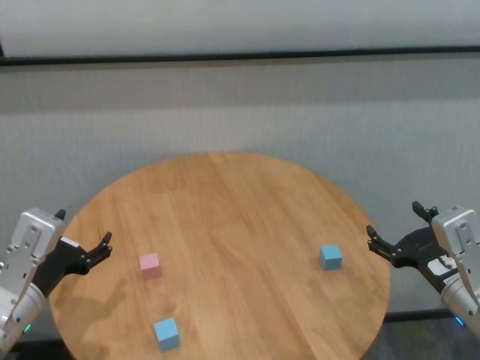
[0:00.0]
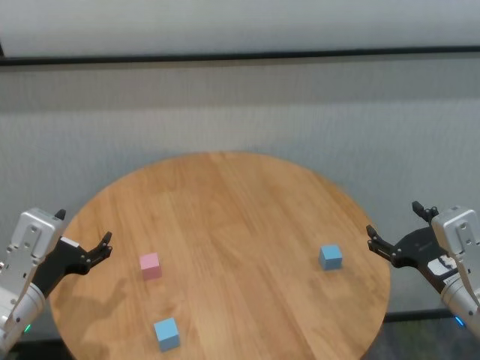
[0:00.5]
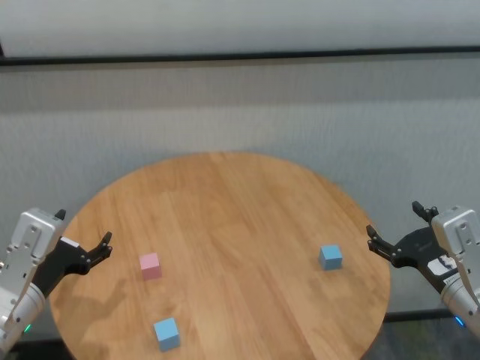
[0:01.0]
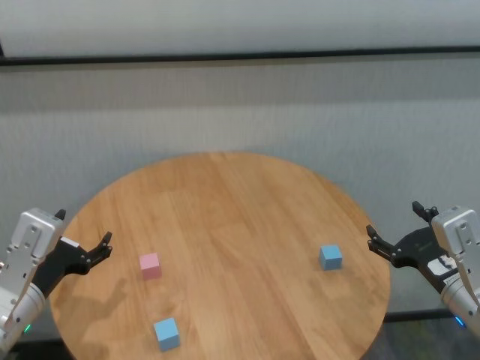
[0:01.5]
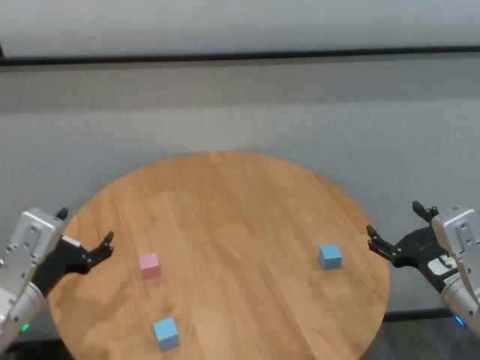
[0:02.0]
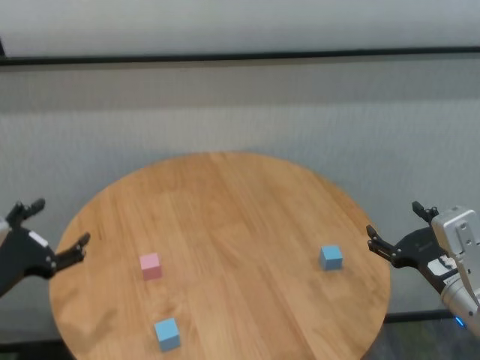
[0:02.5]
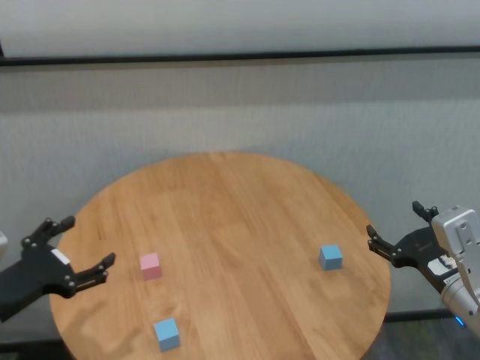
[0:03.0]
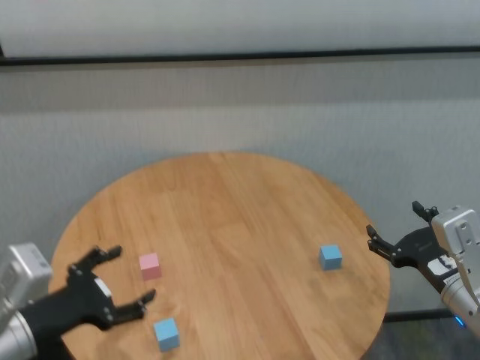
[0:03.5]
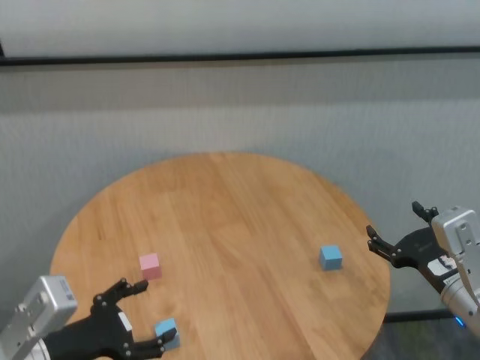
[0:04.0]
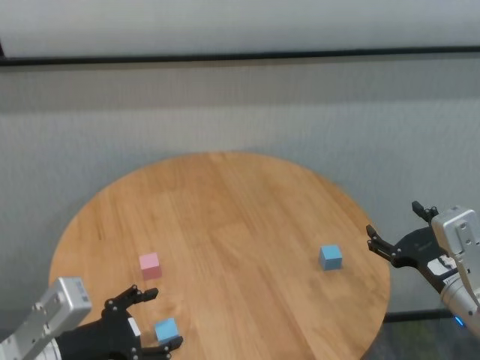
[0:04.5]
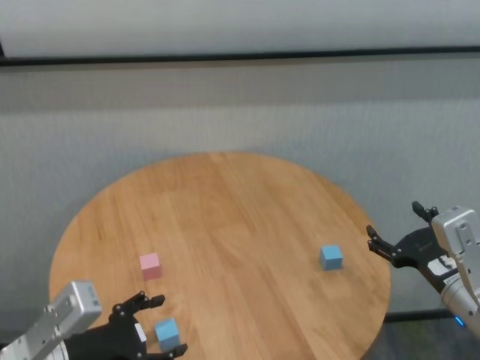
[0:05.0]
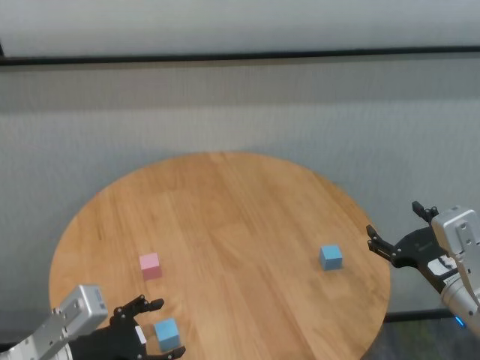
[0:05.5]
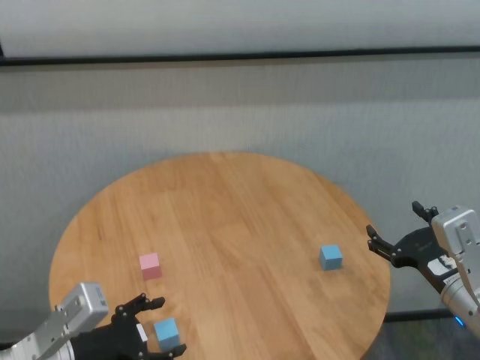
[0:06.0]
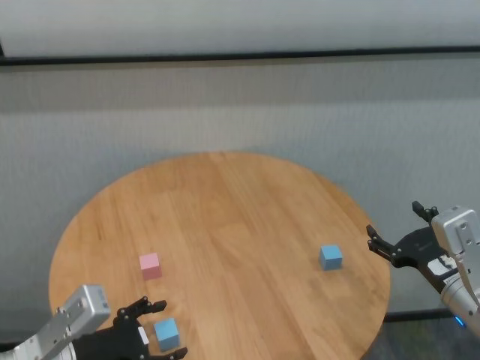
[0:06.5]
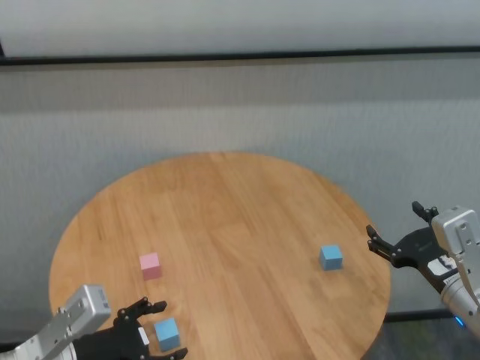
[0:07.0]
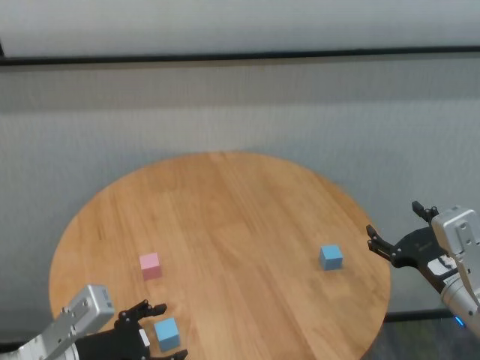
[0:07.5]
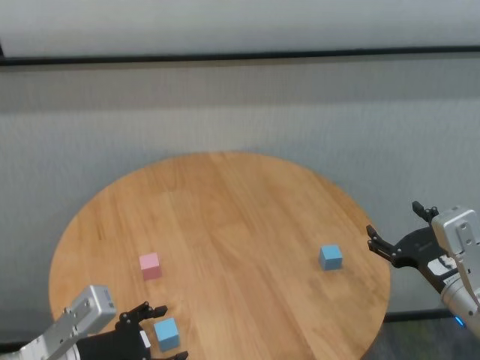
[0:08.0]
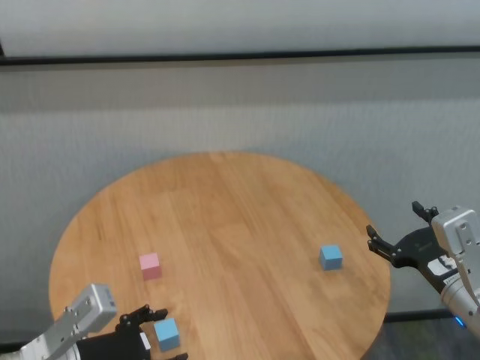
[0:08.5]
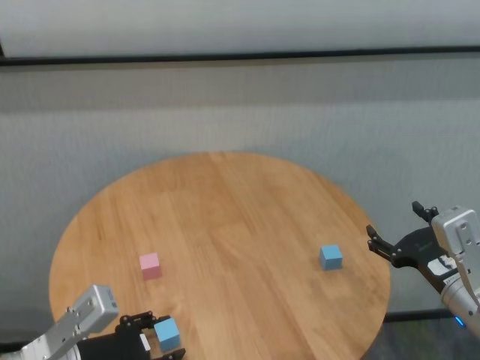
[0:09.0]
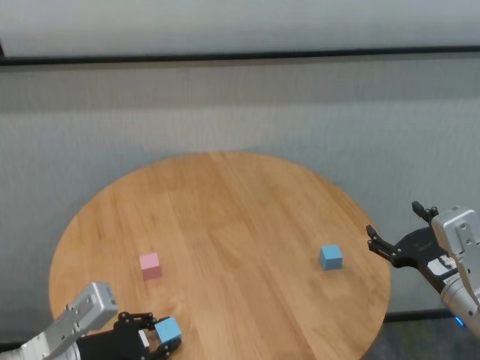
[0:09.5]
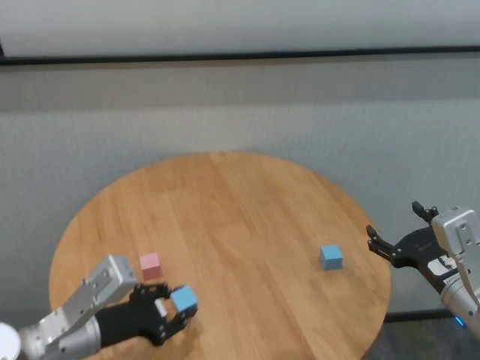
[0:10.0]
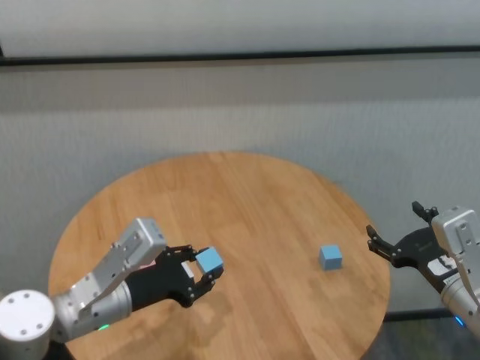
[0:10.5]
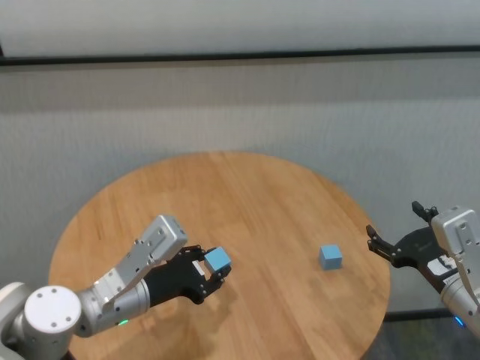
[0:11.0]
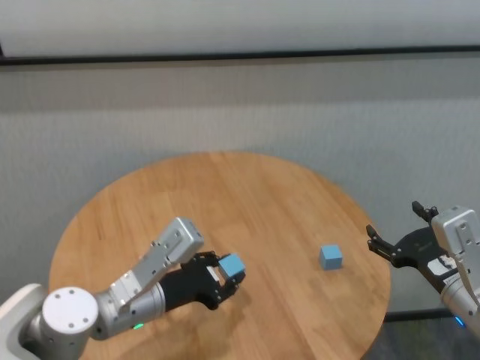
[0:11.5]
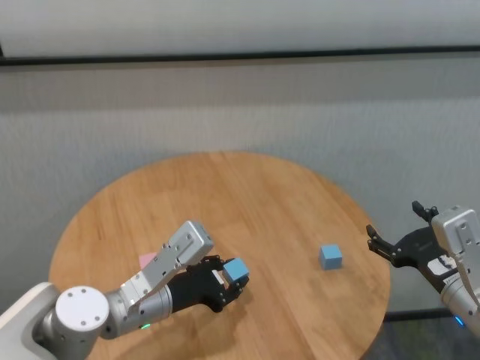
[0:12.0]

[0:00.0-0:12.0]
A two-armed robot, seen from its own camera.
Task of the whole recording: stack building blocks on the table.
Step, 0:00.0 to 0:09.0: Grasp the blue building block with left gripper.

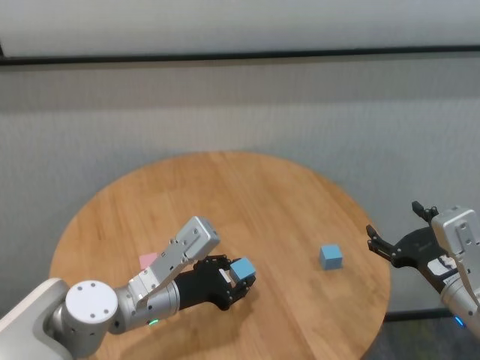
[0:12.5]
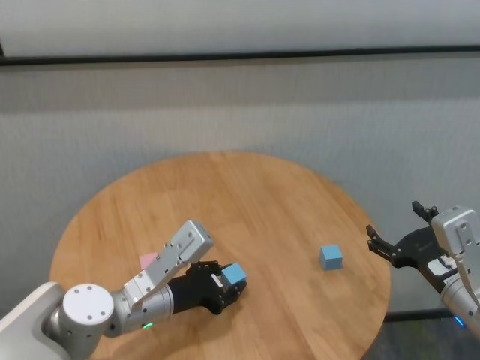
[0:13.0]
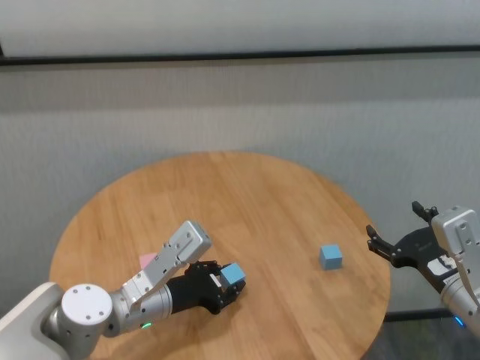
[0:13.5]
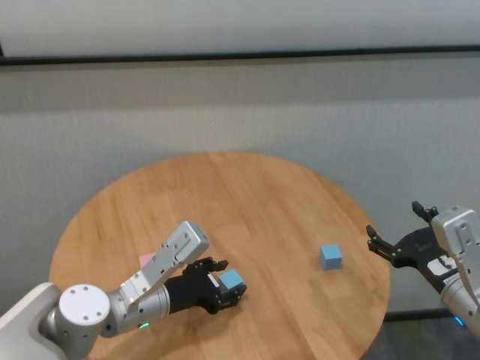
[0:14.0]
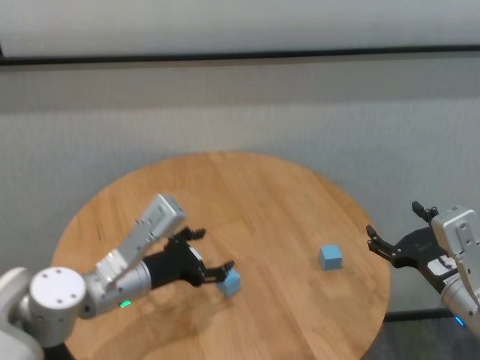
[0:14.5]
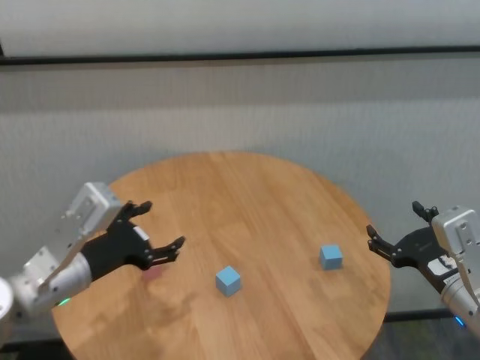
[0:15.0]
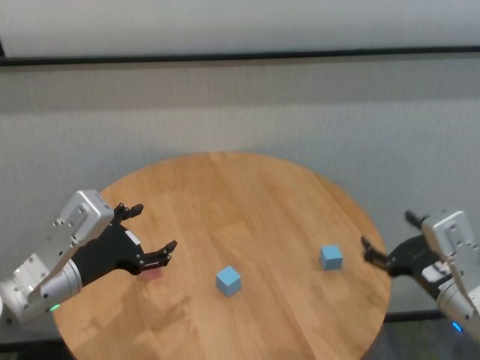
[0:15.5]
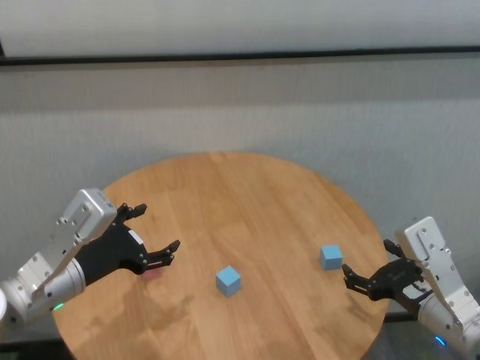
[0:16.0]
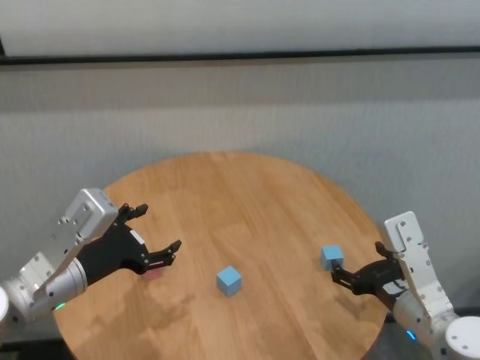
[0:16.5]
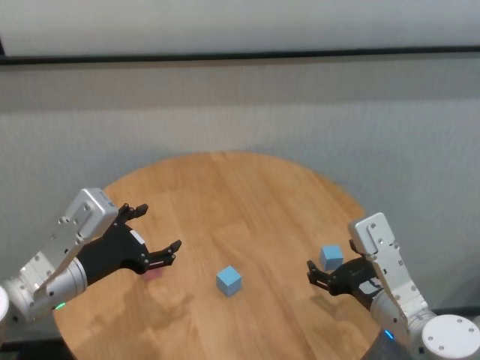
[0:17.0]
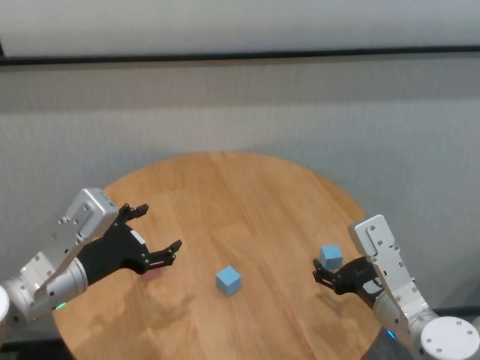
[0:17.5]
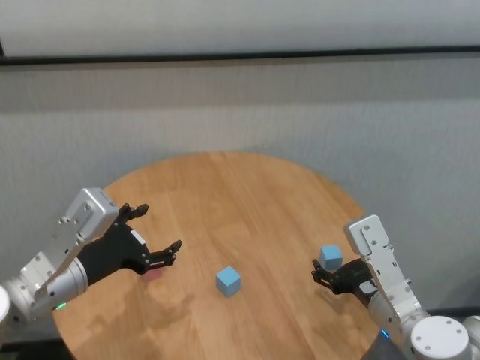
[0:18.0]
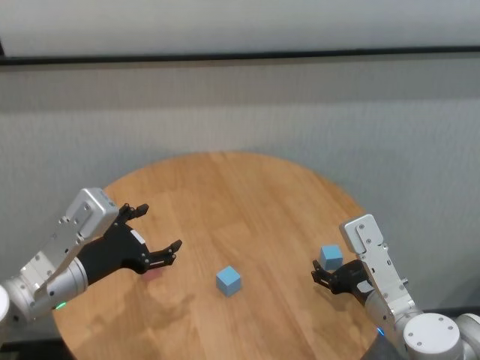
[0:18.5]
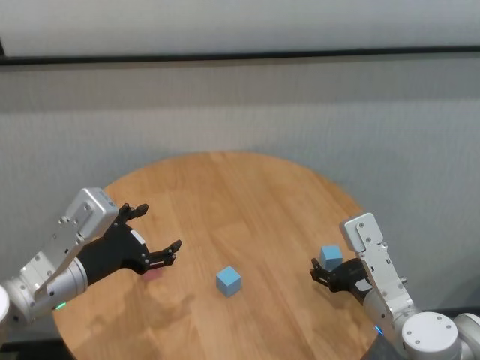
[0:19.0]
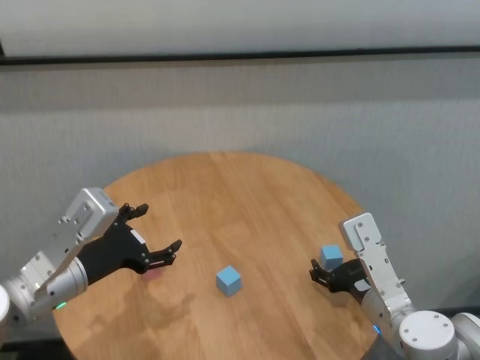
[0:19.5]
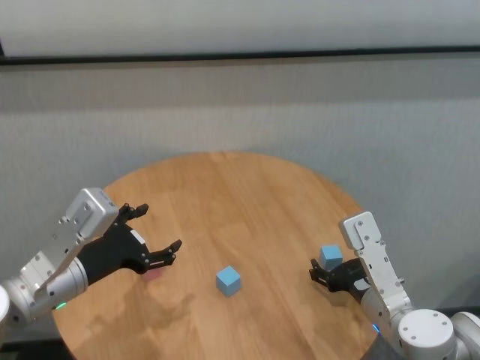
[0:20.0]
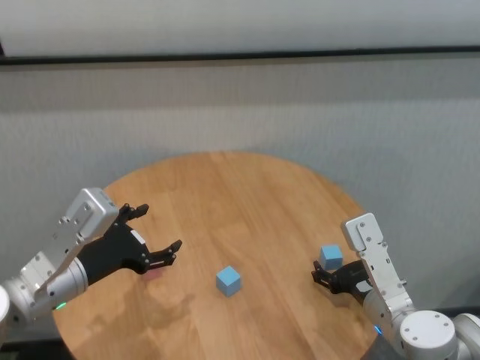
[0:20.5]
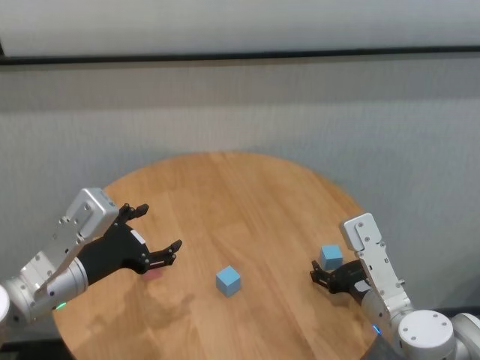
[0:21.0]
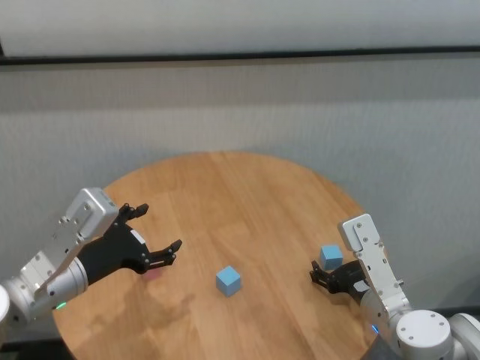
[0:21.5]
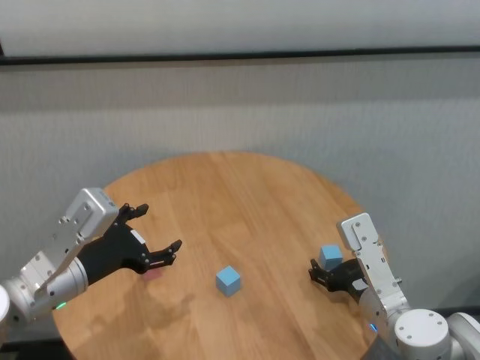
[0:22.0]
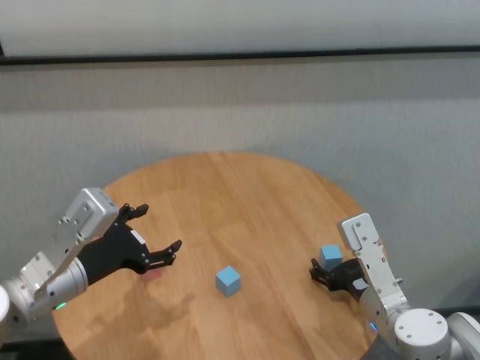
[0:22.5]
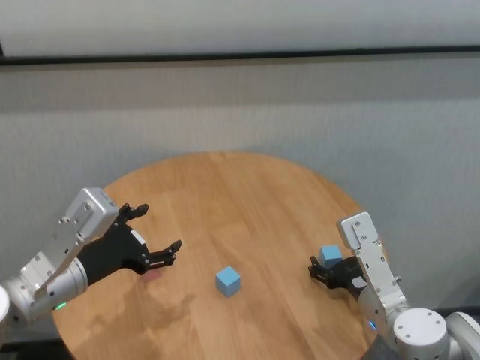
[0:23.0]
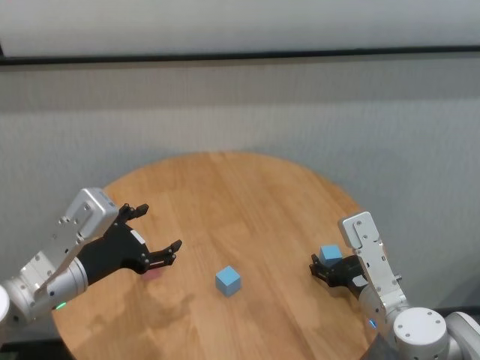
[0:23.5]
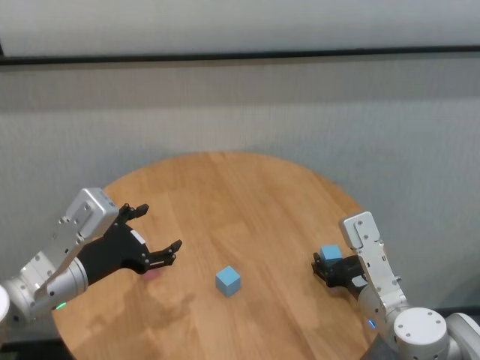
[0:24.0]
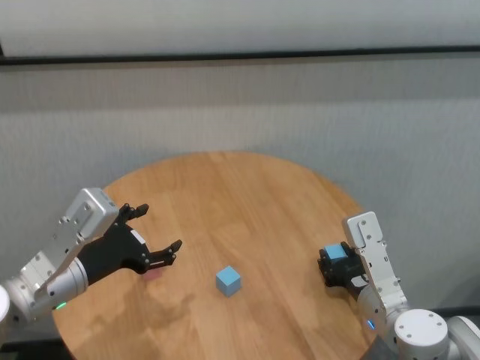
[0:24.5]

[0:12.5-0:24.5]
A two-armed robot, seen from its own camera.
Task of the whole recording: stack building blocks on the table.
Step, 0:14.5 to 0:24.5: Grasp the blue building block with right gripper.

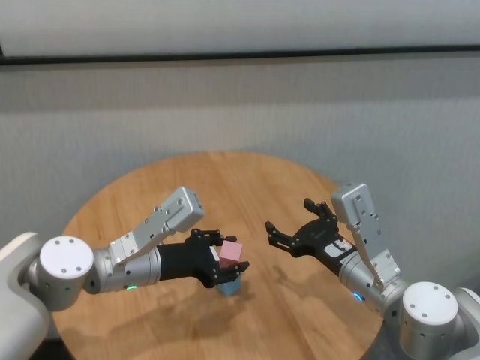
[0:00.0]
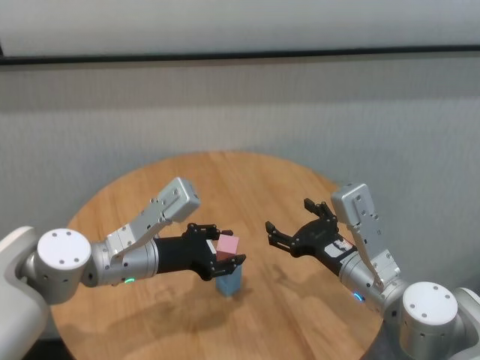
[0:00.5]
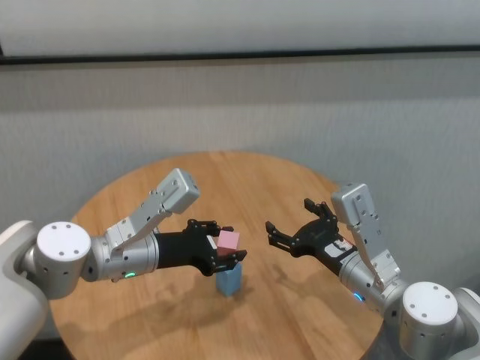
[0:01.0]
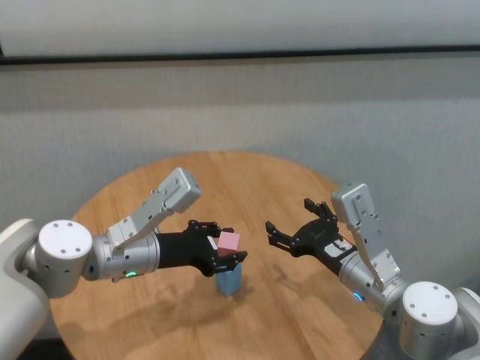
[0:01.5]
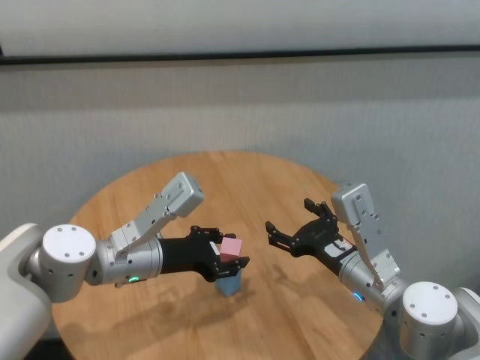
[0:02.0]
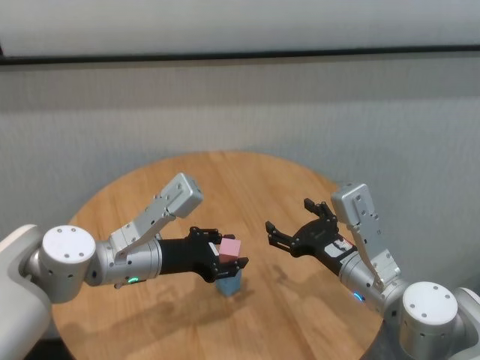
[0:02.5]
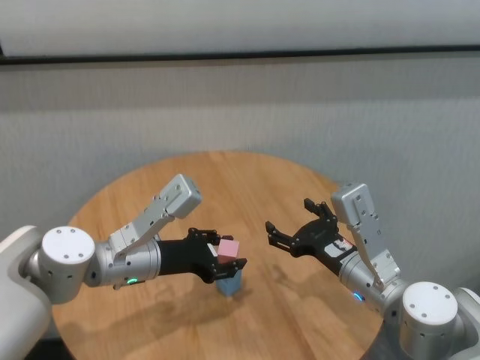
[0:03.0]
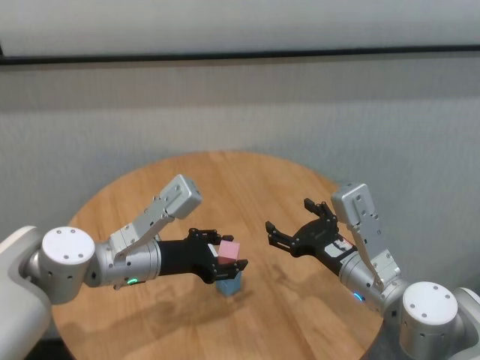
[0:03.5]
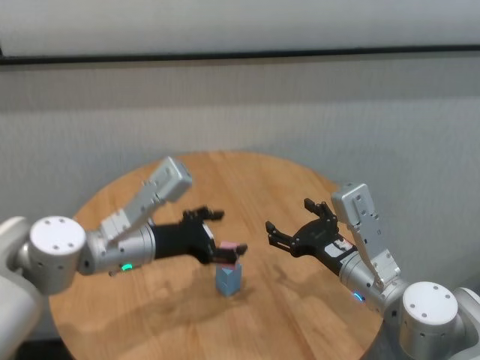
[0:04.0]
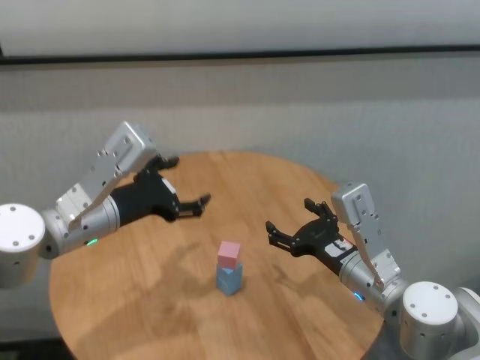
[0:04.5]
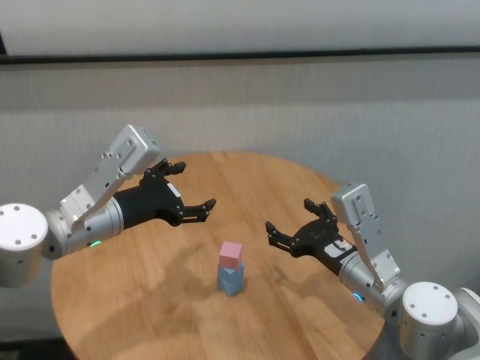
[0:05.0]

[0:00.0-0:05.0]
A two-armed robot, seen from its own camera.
Task of the whole recording: stack building blocks on the table.
Step, 0:00.0 to 0:03.5: Place the pink building block on the blue building blocks with left gripper.
